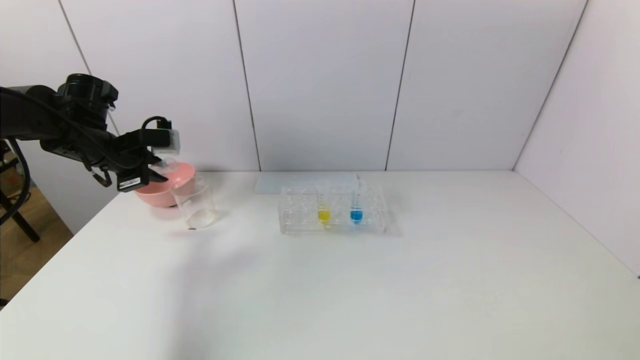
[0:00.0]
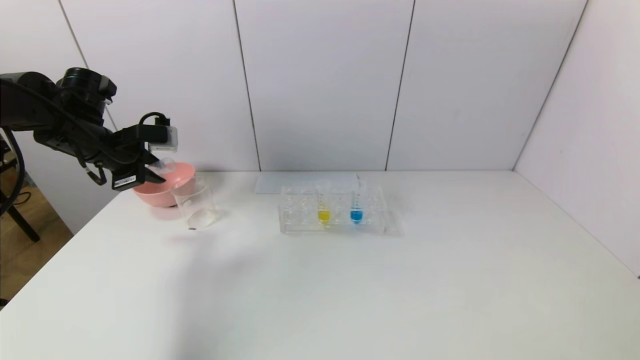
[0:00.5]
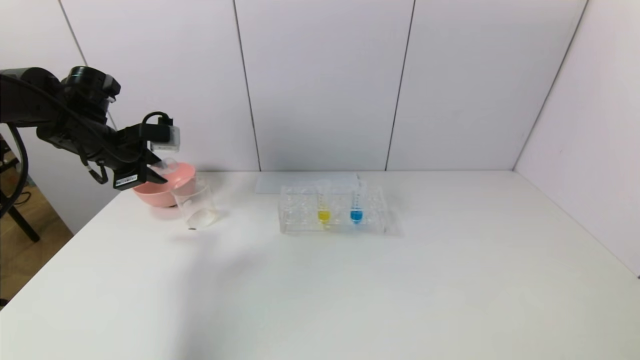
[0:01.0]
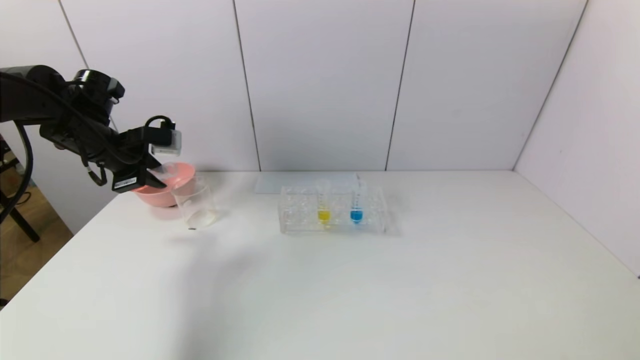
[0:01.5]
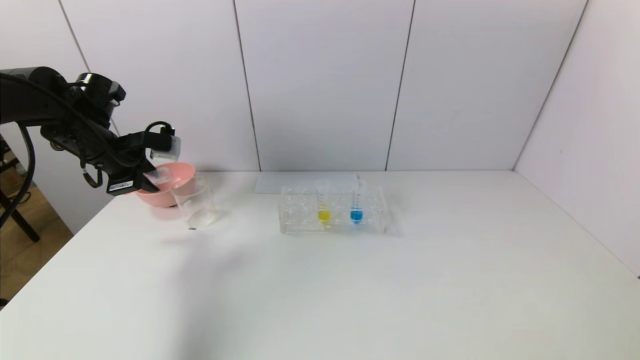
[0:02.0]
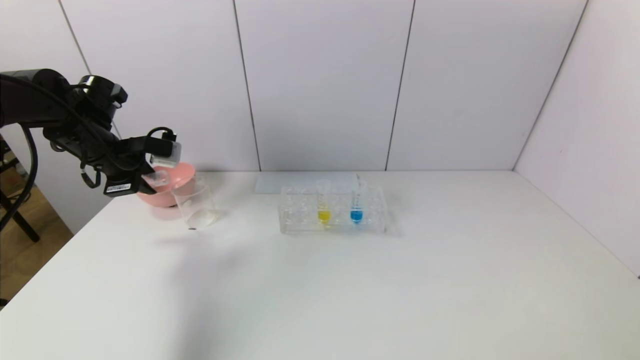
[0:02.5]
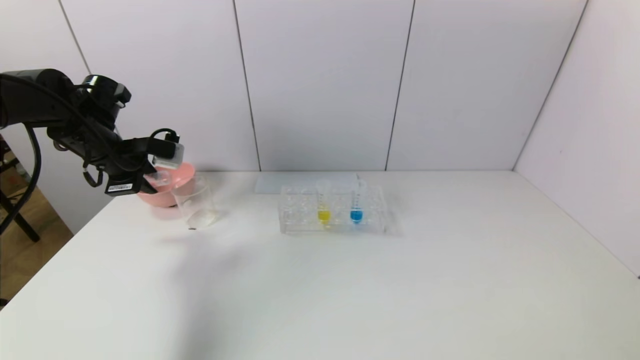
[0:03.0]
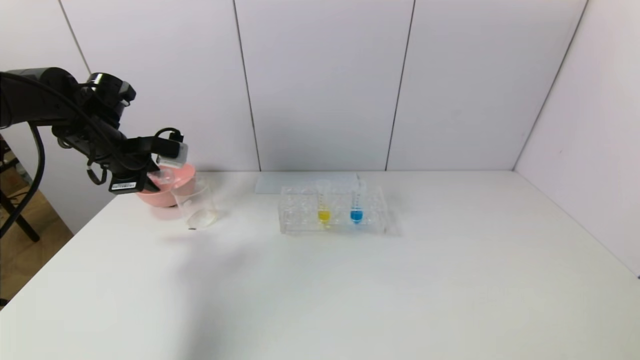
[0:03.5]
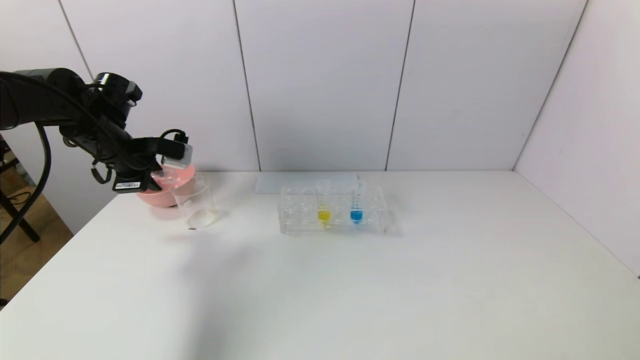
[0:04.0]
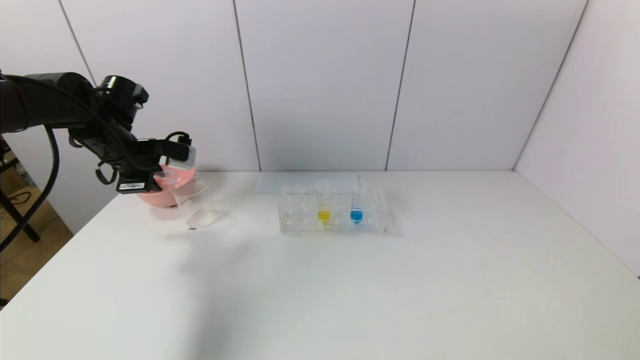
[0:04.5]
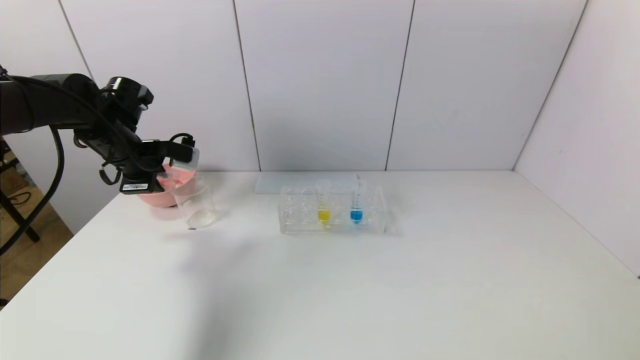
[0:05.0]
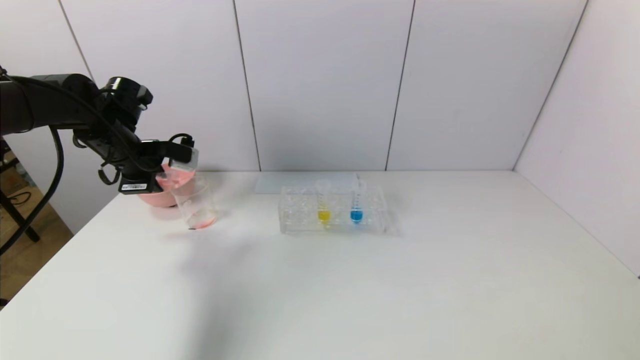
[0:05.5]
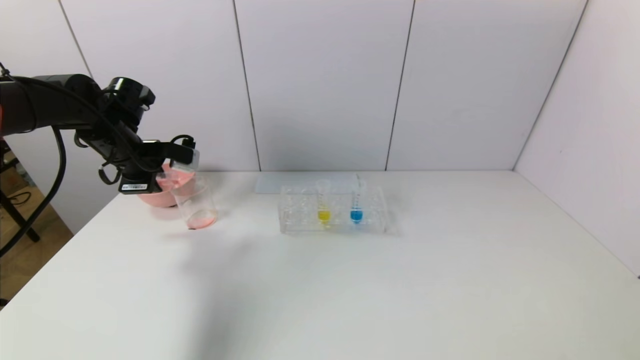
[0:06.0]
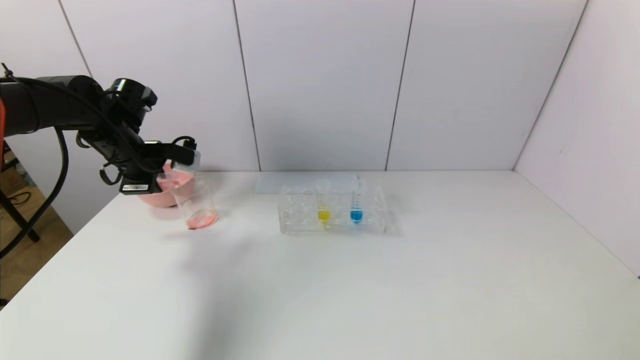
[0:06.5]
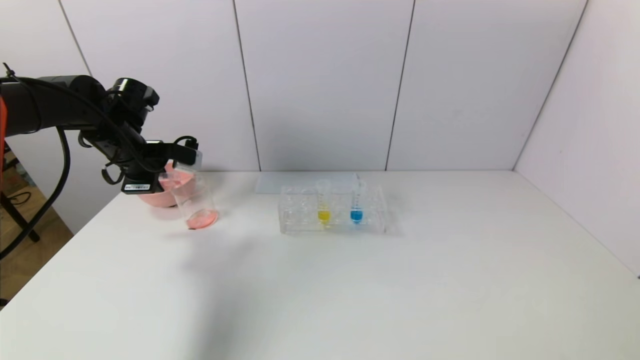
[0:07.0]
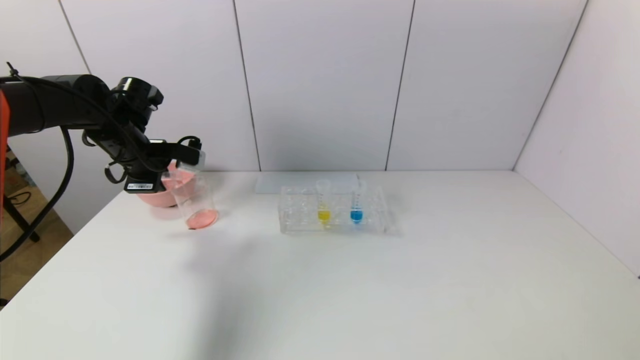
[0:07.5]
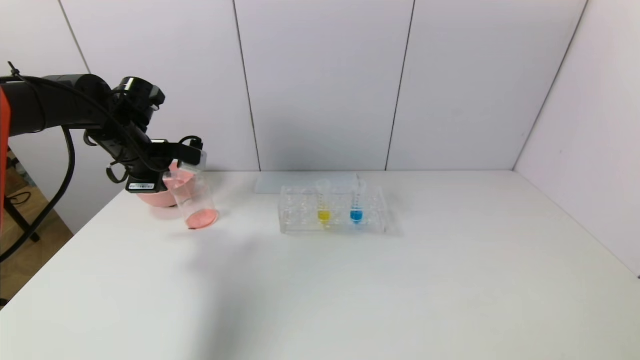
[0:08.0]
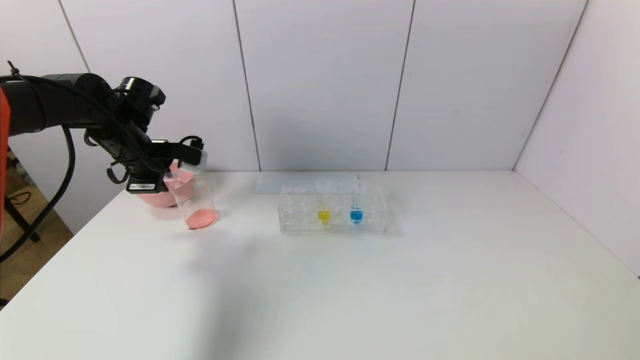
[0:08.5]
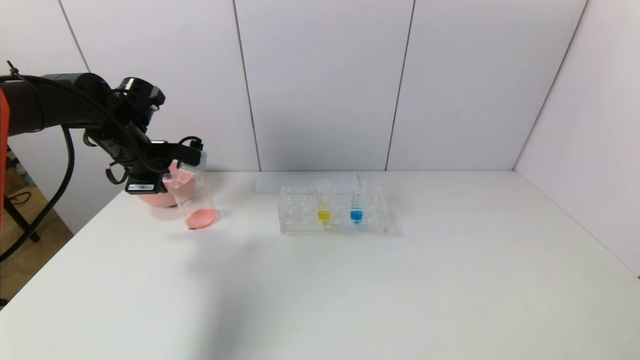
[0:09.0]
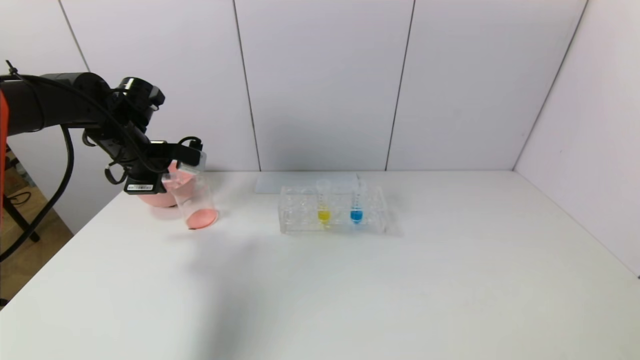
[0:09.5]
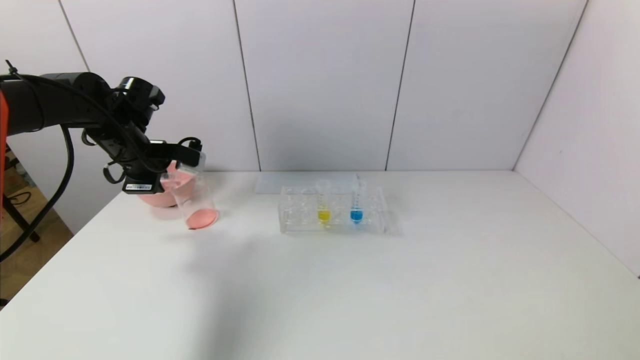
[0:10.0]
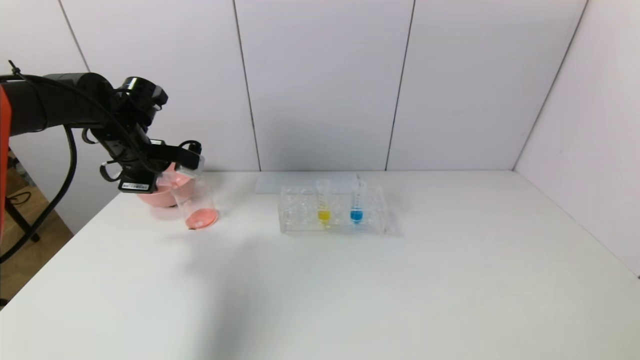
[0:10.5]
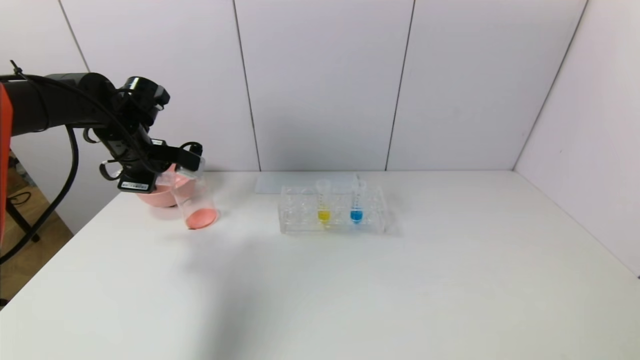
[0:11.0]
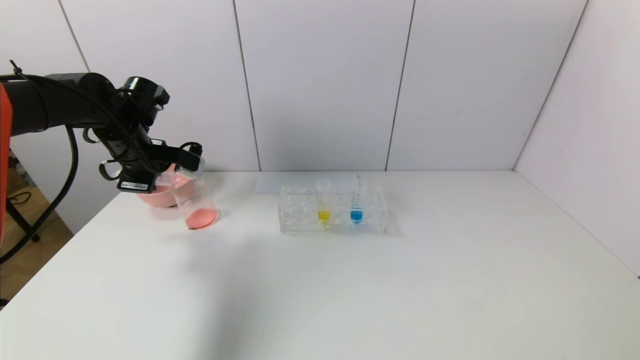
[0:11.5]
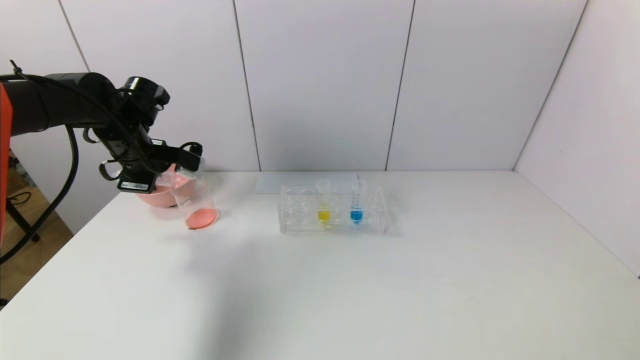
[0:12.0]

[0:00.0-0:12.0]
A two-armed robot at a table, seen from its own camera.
Task of the whole recording: pick up the test tube with yellow pigment and the test tube with red pigment by grippers and pour them into the beaker.
Step, 0:00.0 to 0:12.0: Pour the red reagent into the graduated cylinder with the left gripper.
0:00.0 to 0:04.0: There are only small adjustments of the grippers.
0:04.0 to 0:06.0: The grippers move only a little.
0:06.0 to 0:10.0: The two grippers keep their place.
0:10.0 to 0:12.0: The grippers stay close to where they were, moving slightly.

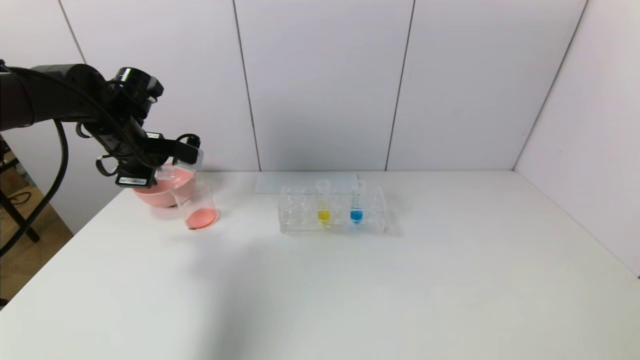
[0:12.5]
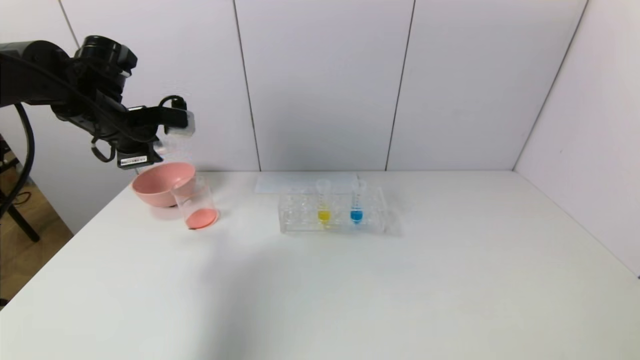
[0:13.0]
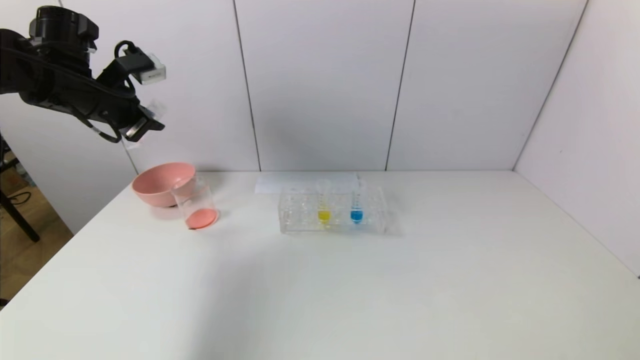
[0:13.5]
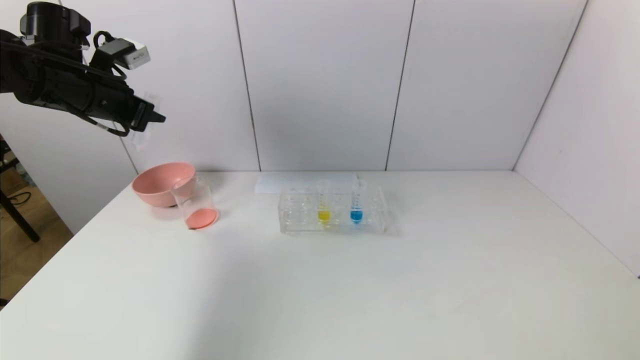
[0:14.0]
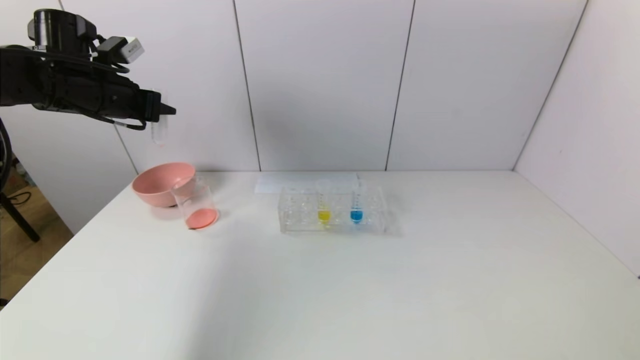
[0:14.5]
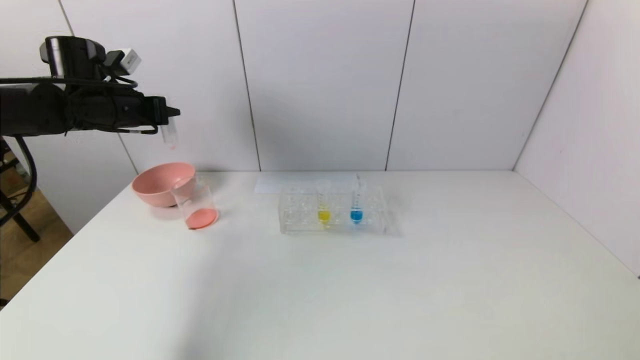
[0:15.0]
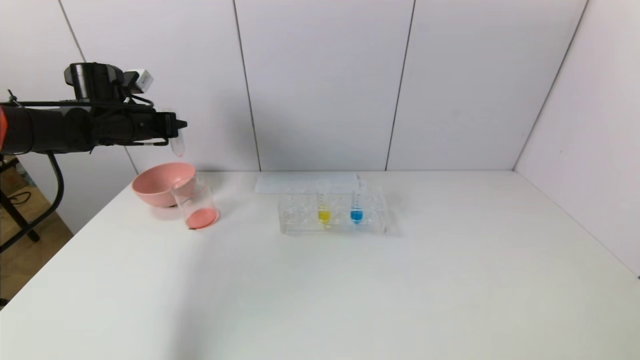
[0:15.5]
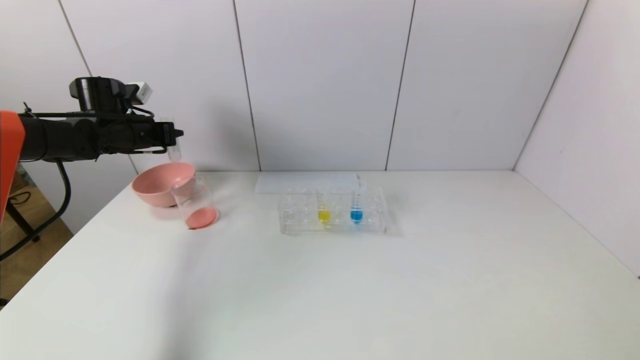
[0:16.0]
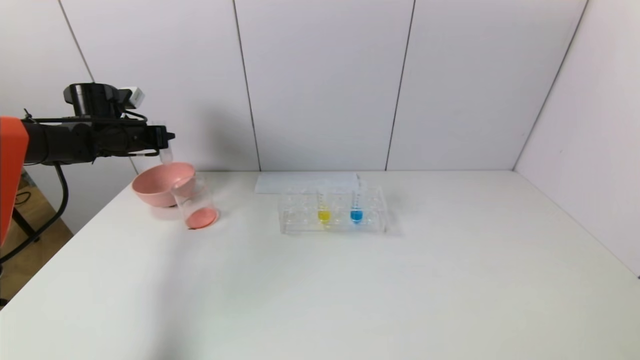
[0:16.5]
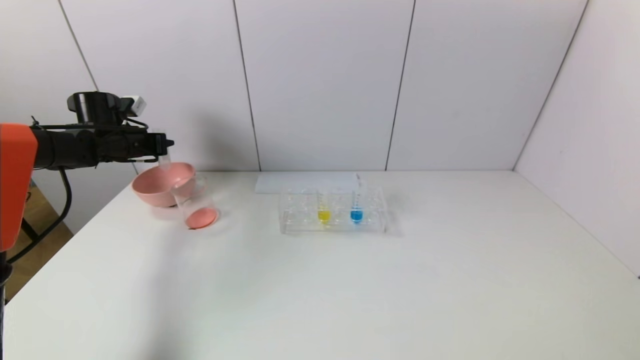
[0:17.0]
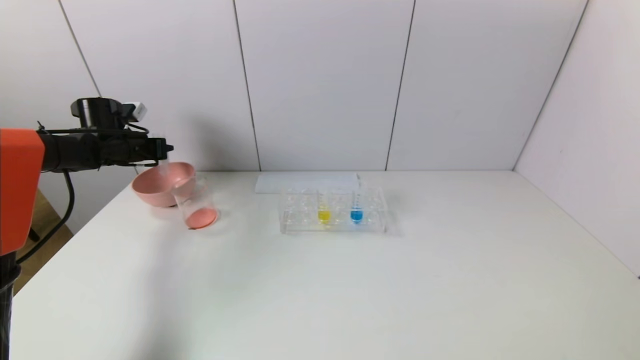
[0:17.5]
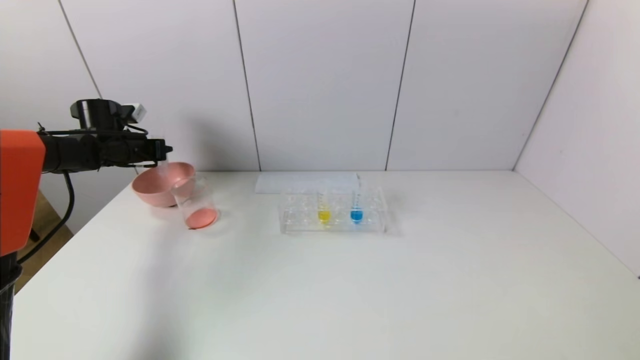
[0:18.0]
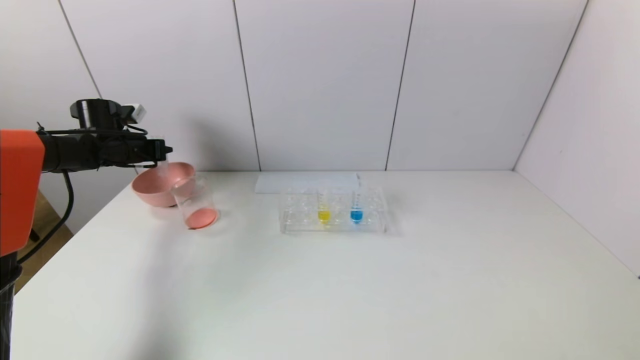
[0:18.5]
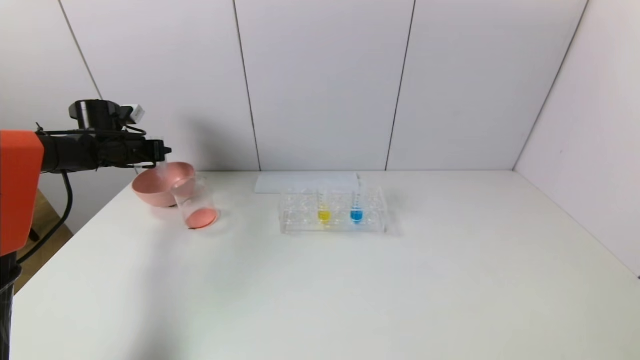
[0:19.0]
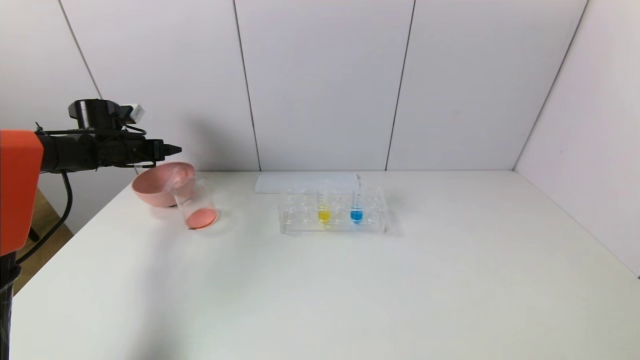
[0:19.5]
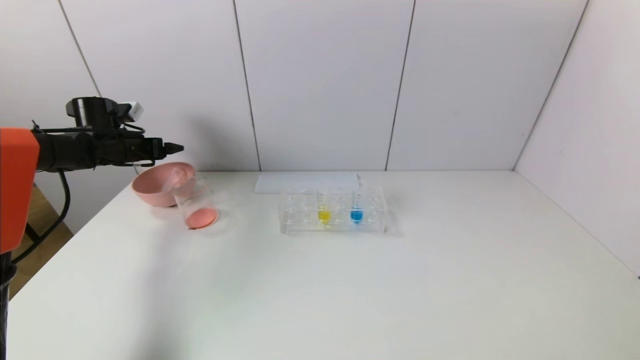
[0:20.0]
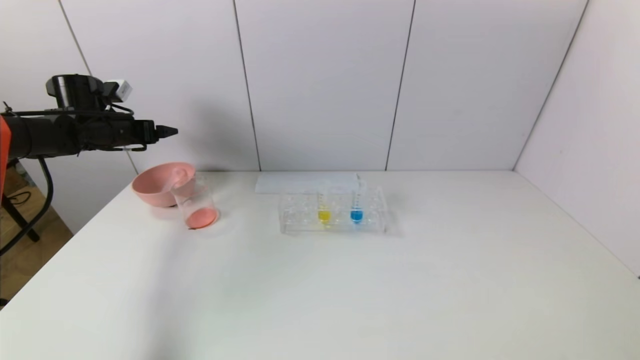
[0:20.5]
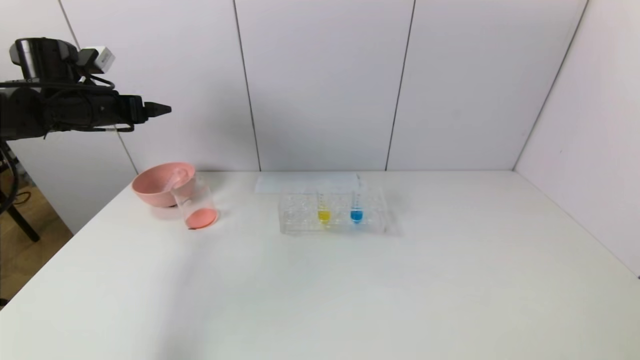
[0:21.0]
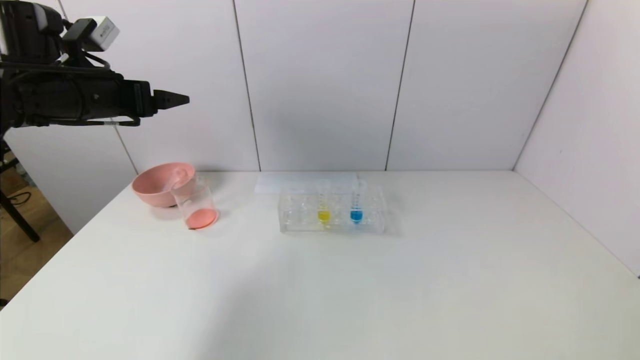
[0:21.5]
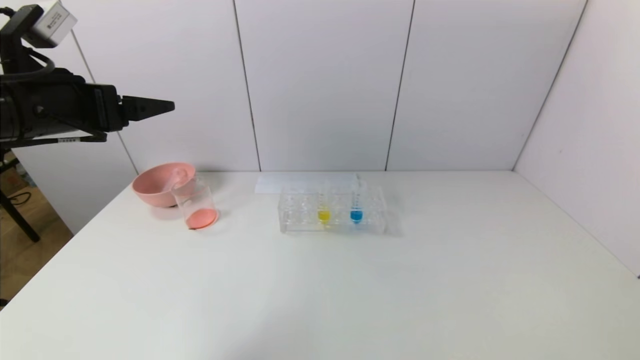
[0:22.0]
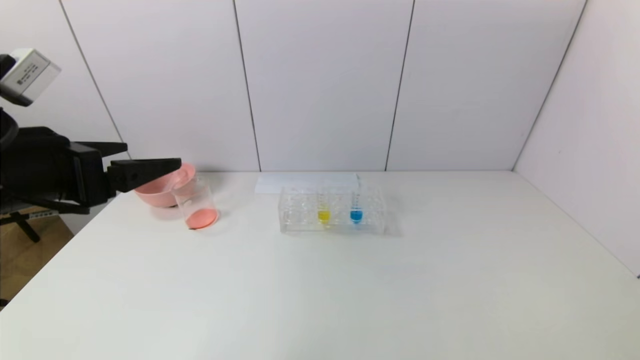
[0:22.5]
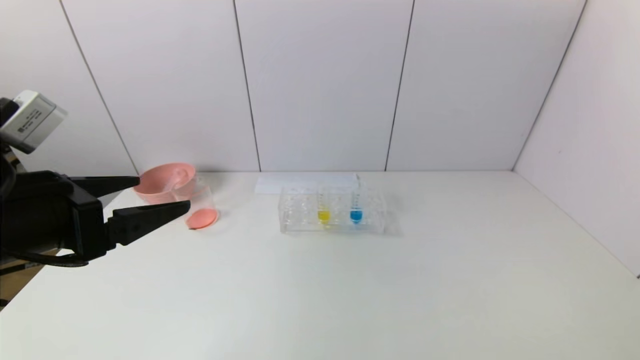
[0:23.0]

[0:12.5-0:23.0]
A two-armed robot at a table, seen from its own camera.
Task of the whole recording: pick up the test tube with yellow pigment and the test tube with red pigment by grippers and pour them into the beaker.
Step, 0:12.5 to 0:19.0: Place the test tube into the pink bowl with the left gripper.
0:12.5 to 0:14.5: The left gripper goes about 5 cm upward.
0:14.5 to 0:16.5: The left gripper travels downward, forward and to the left by some 15 cm.
0:16.5 to 0:19.0: The grippers stay close to where they were, moving slightly.
0:19.0 to 0:21.0: The left gripper shifts some 15 cm upward and backward, and opens.
0:21.0 to 0:23.0: The left gripper goes some 30 cm backward and to the right.
